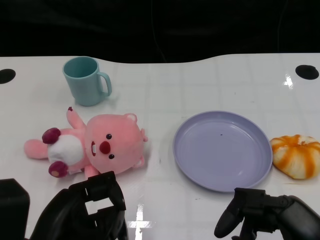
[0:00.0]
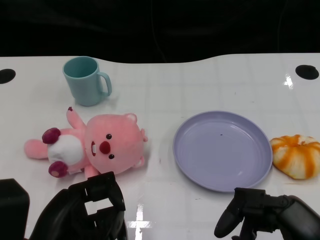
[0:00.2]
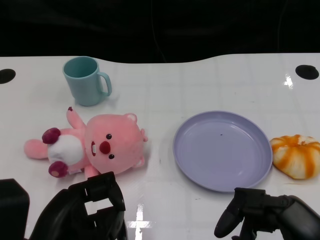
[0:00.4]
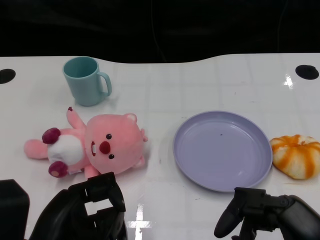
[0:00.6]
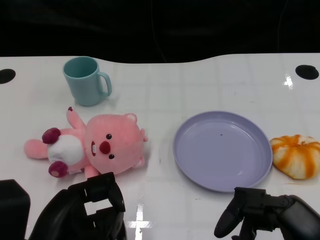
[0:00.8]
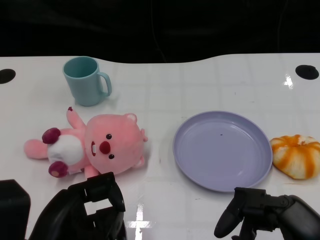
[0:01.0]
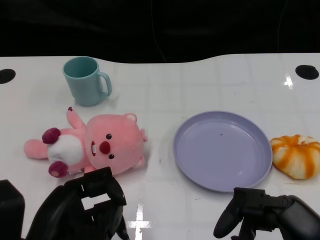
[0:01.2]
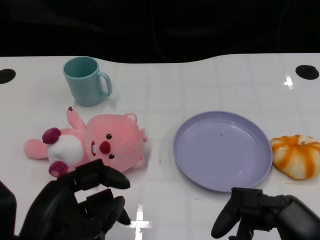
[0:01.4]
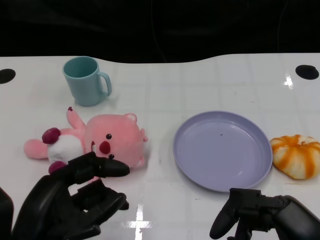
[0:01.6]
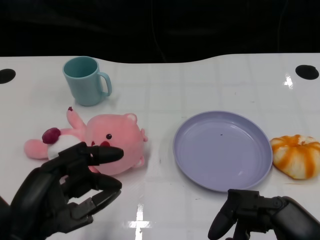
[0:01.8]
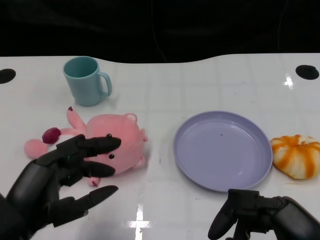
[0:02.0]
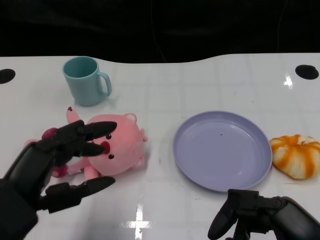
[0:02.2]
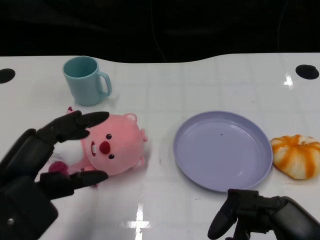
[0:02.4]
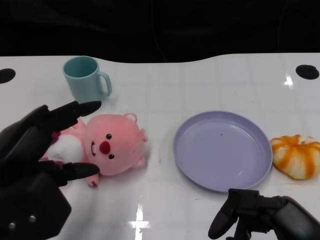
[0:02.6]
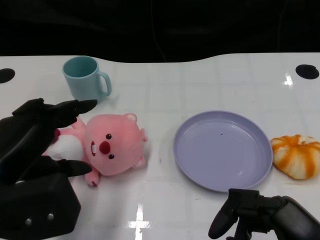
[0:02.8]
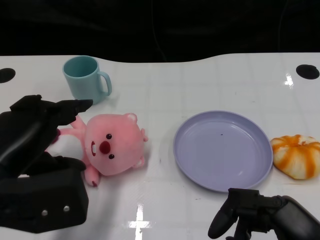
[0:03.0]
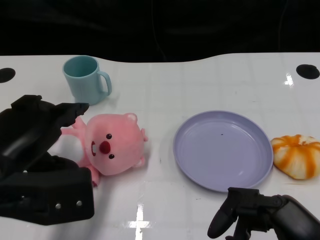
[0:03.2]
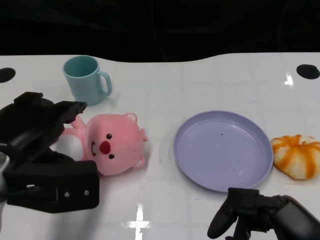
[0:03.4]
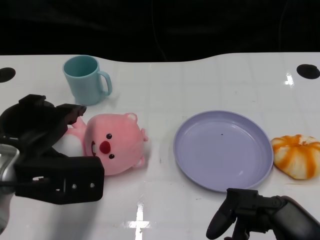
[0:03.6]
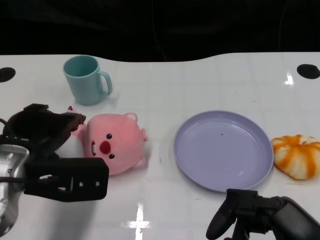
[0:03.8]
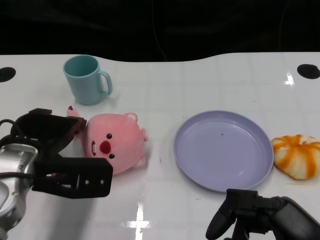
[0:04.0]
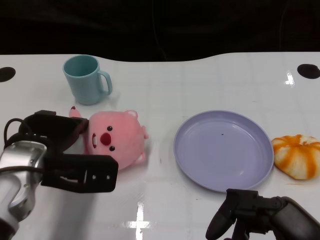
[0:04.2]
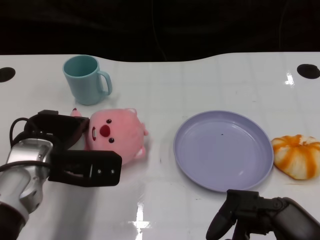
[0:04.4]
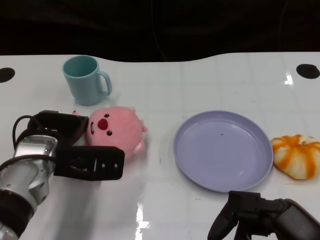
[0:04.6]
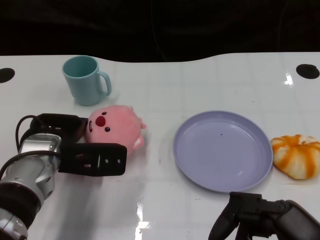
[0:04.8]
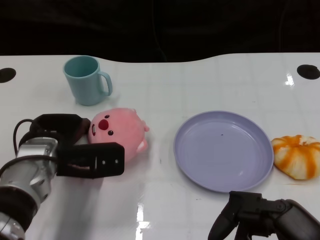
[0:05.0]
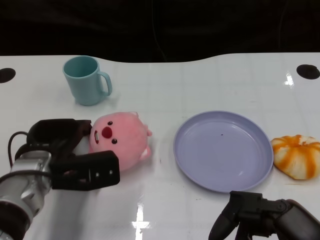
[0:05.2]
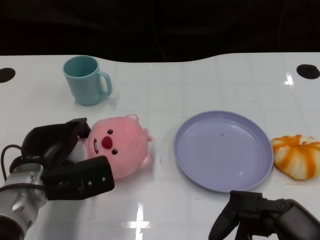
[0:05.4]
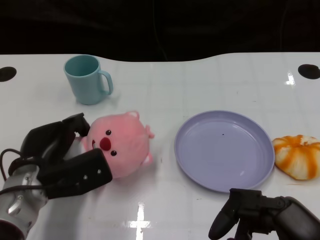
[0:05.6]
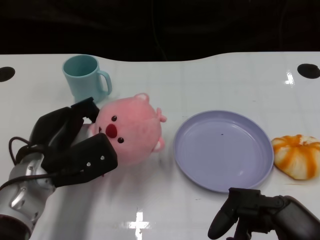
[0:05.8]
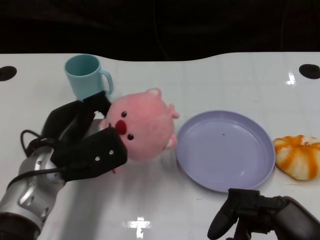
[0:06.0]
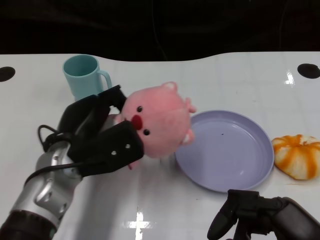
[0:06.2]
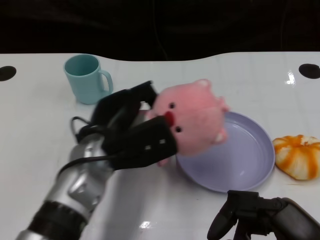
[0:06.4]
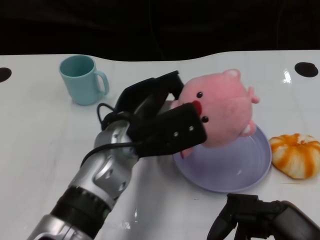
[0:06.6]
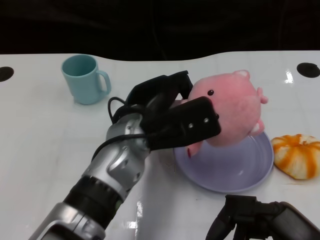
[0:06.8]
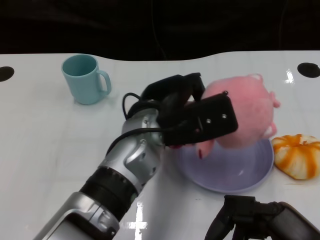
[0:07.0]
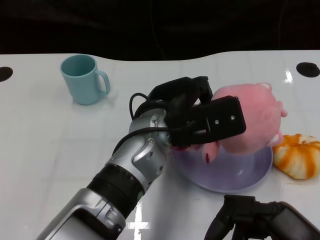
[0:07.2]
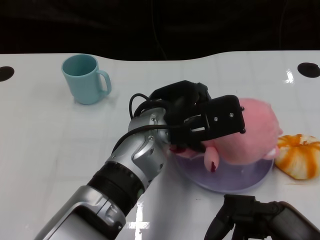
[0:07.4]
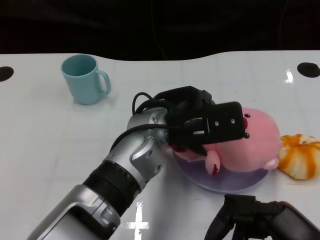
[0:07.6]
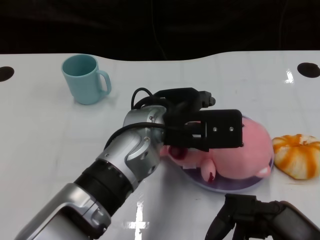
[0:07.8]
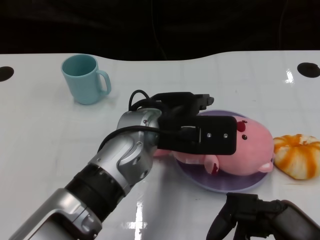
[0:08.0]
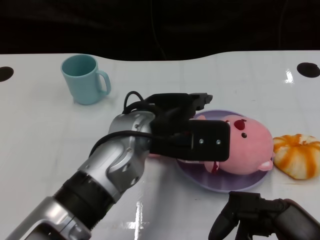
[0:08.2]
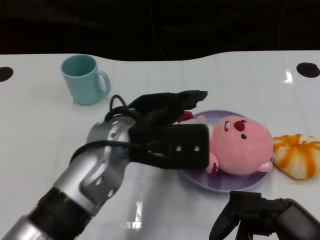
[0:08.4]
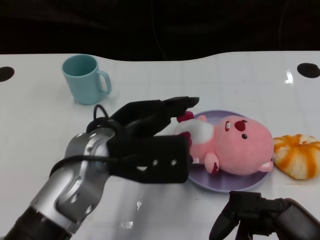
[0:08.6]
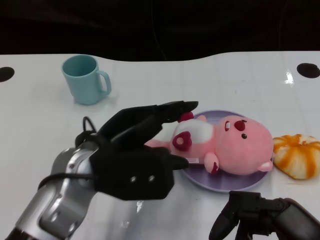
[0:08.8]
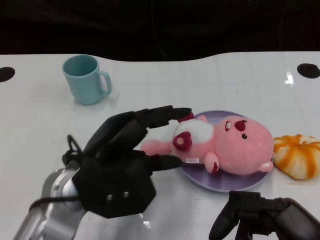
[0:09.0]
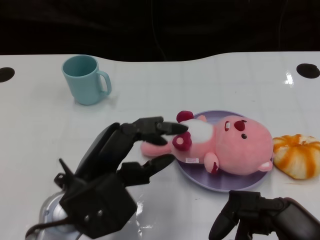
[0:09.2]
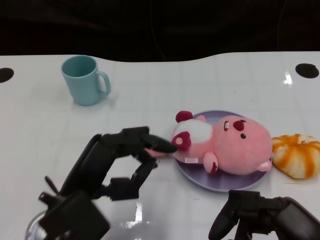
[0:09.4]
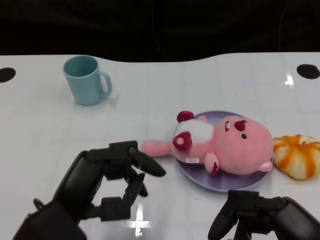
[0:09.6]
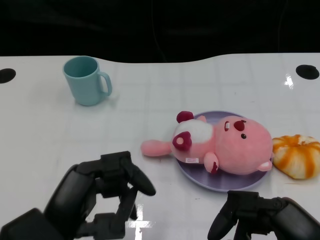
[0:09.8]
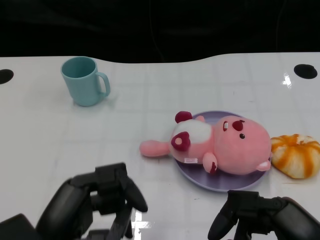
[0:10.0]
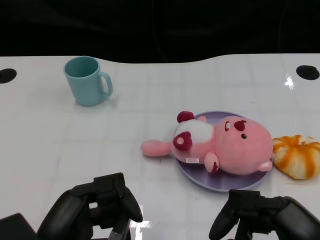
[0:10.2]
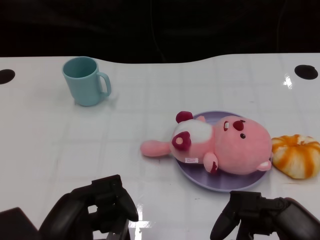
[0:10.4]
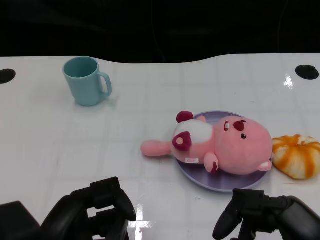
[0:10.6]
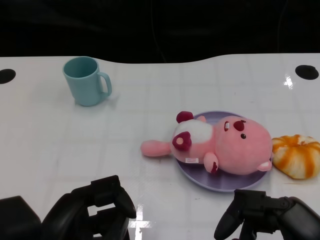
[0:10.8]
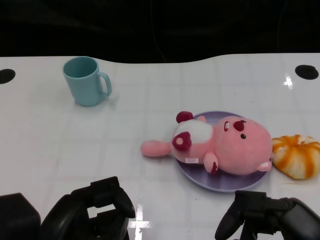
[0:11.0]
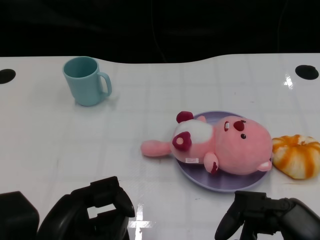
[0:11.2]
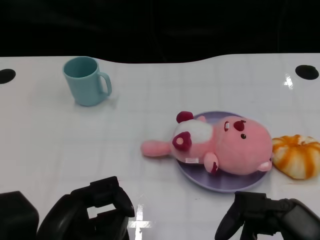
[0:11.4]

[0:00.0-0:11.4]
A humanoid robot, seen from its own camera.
Task of the whole recording: Pick up the doll on one side of the plate and place it into the plate.
Step, 0:01.2 to 0:05.6: Grasp the pink doll with the left gripper.
Step, 0:05.8 to 0:07.8: Place the pink doll into the plate with the left gripper.
0:01.4 to 0:02.8: The left hand moves upward, about 5 cm.
0:02.8 to 0:04.2: The left hand travels forward and downward by roughly 10 cm.
0:04.2 to 0:05.6: The left hand shifts approximately 5 cm downward.
0:05.6 to 0:07.2: The left hand travels to the right and upward by roughly 20 cm.
0:07.2 to 0:08.6: The left hand is displaced to the left by some 10 cm.
0:08.6 to 0:10.0: The left hand is displaced backward and to the left by some 15 cm.

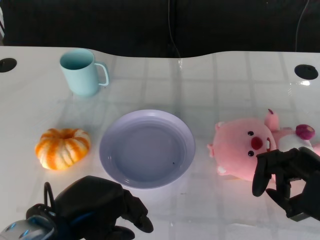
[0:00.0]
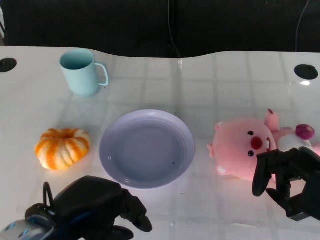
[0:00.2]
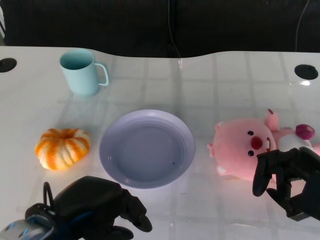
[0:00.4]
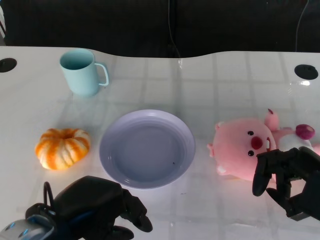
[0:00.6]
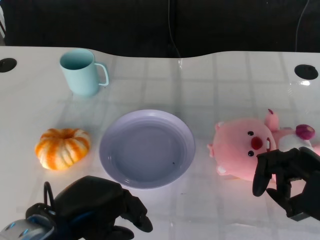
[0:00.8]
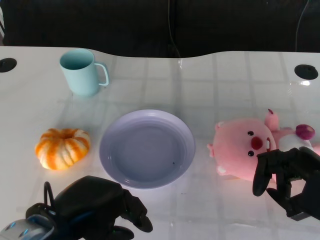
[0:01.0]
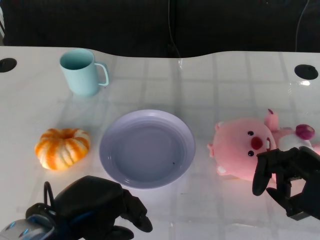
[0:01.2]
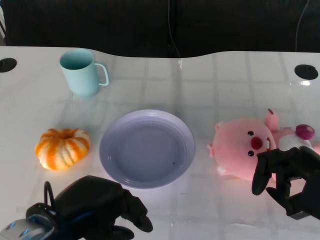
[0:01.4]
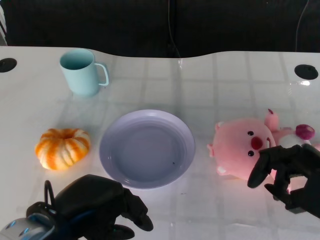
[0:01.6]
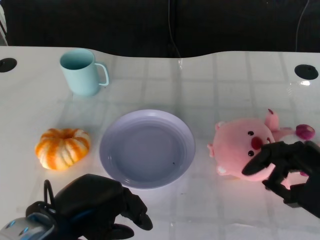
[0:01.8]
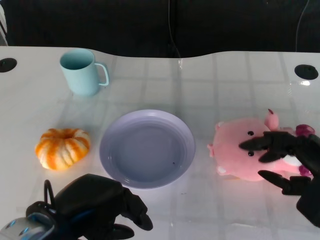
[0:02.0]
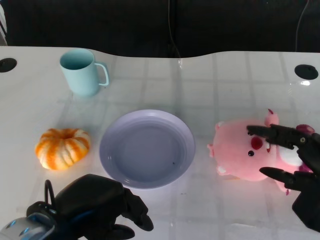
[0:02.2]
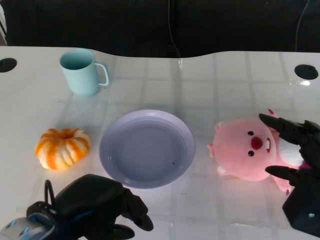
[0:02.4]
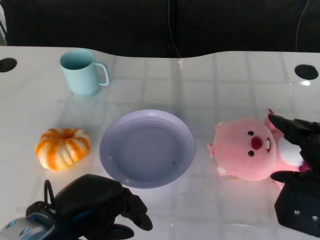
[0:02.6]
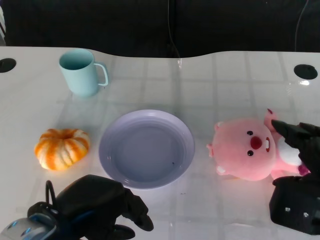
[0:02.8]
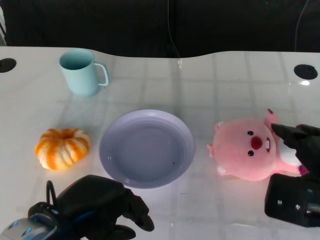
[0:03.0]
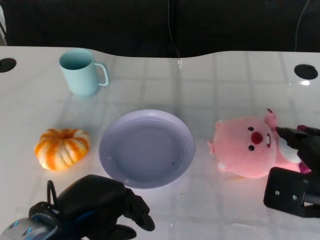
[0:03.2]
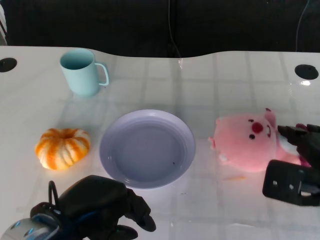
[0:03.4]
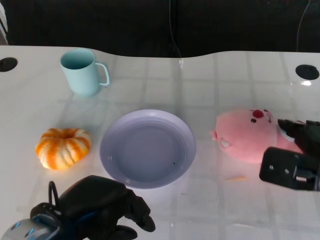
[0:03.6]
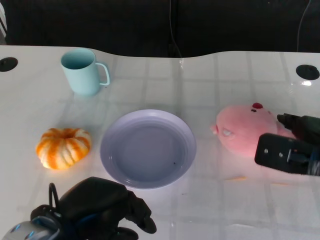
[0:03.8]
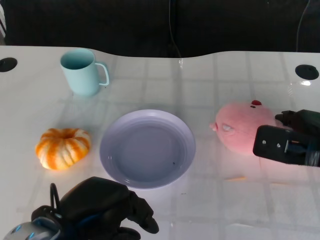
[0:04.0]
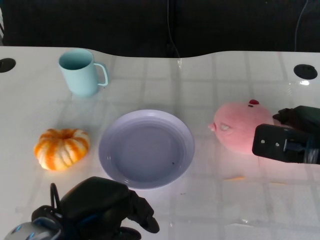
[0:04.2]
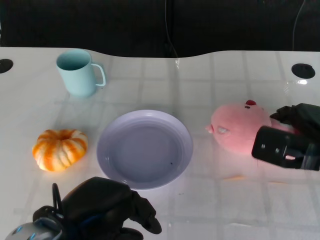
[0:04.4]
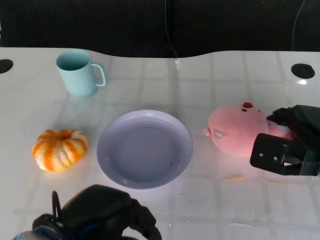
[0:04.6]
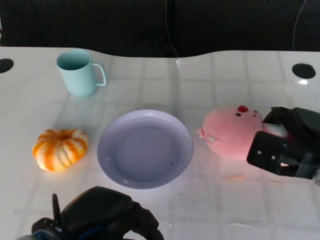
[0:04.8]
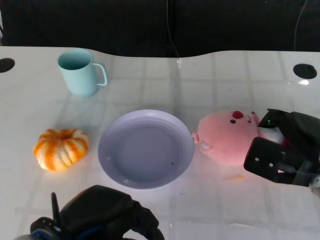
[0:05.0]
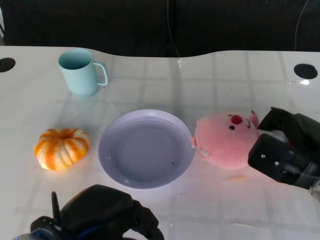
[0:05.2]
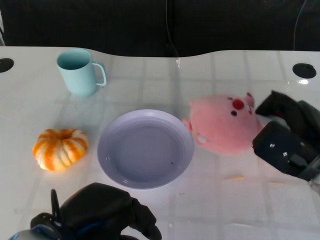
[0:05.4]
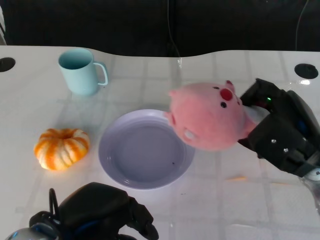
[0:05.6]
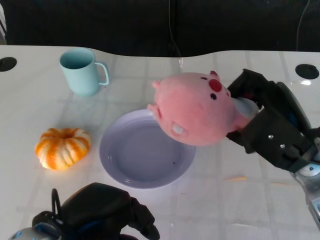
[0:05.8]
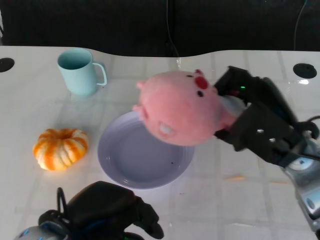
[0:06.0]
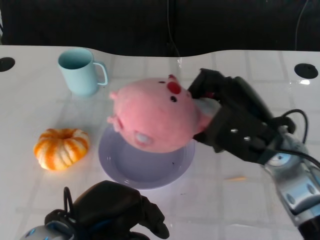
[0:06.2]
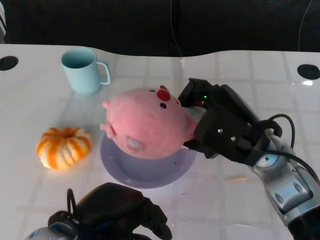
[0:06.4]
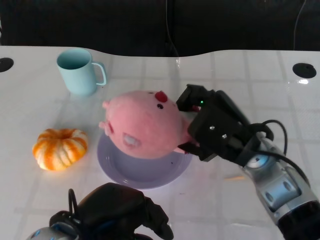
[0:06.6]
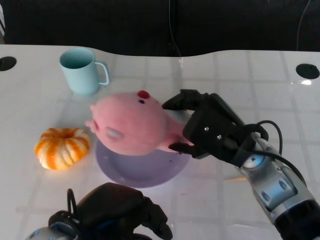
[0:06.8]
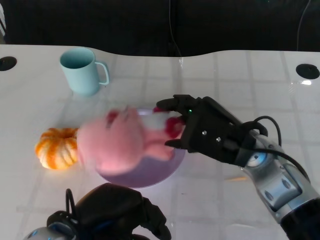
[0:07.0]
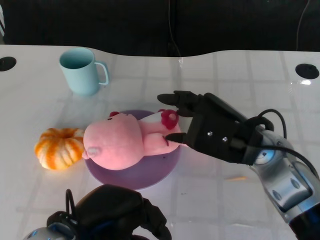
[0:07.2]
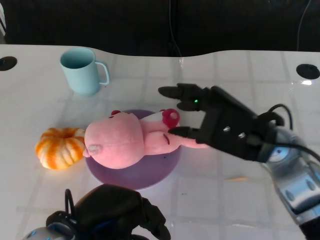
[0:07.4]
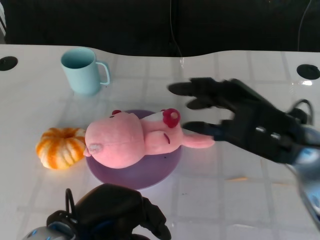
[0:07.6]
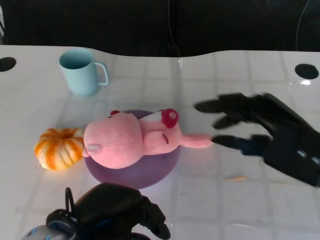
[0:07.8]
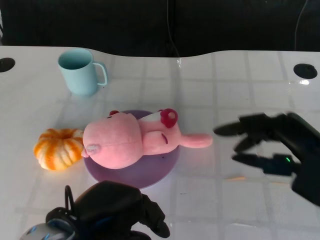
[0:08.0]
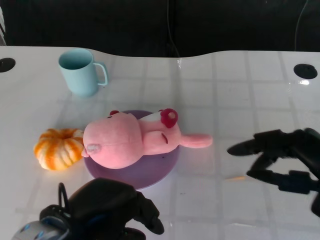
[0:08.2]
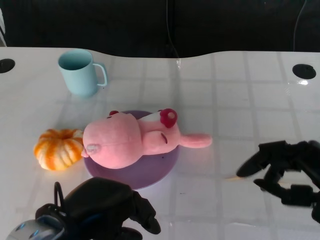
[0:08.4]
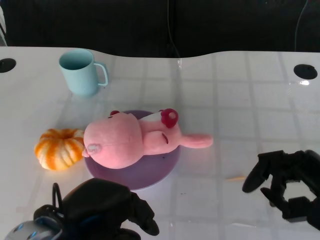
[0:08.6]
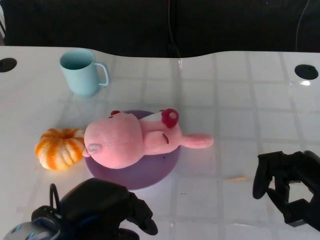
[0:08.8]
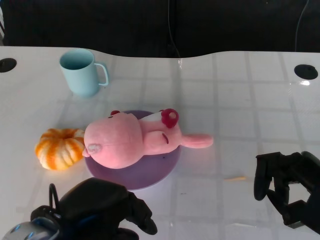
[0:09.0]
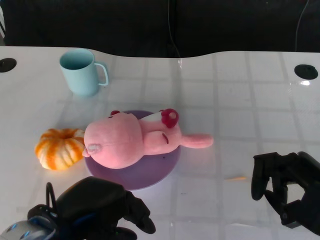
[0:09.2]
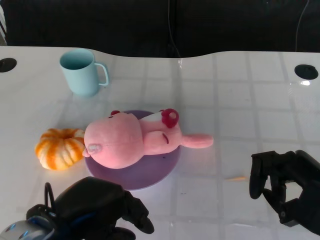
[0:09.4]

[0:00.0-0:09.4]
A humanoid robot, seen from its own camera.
Task of the whole recording: Pick up the doll on the other side of the plate and place it into the plate.
Step, 0:01.4 to 0:05.8: Grasp the pink doll with the right gripper.
Step, 0:06.2 to 0:07.6: Place the pink doll into the plate with the right gripper.
0:03.2 to 0:04.8: The right hand goes approximately 5 cm forward.
0:04.8 to 0:06.2: The right hand heads to the left and upward, covering some 10 cm.
0:06.2 to 0:07.8: The right hand goes roughly 5 cm to the right.
0:07.8 to 0:09.4: The right hand is displaced downward and backward by roughly 5 cm.

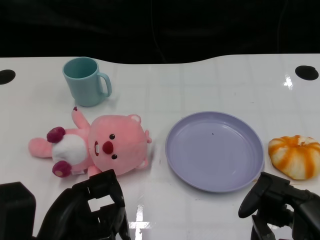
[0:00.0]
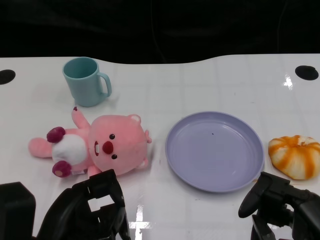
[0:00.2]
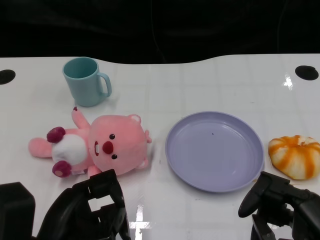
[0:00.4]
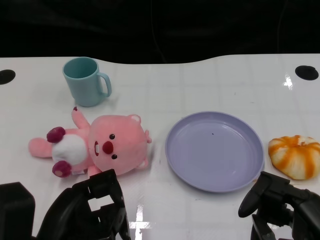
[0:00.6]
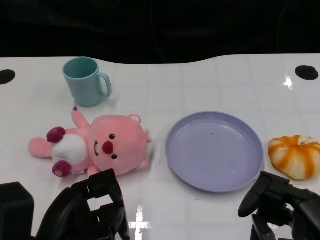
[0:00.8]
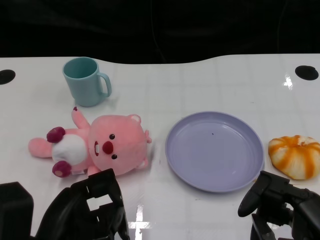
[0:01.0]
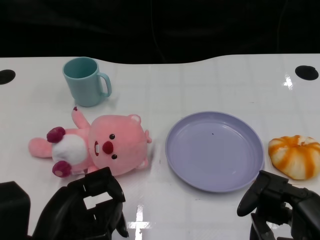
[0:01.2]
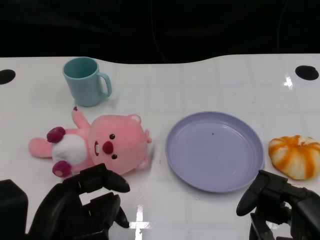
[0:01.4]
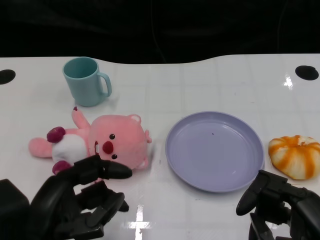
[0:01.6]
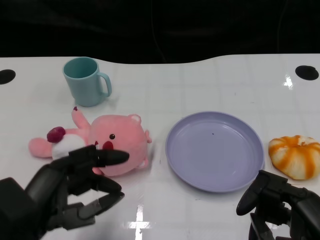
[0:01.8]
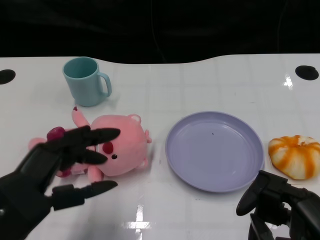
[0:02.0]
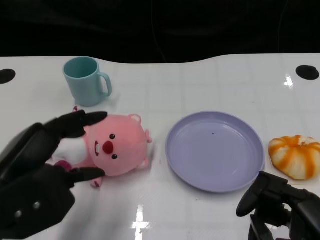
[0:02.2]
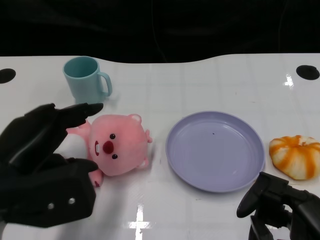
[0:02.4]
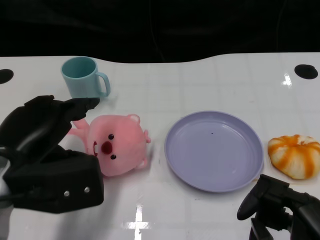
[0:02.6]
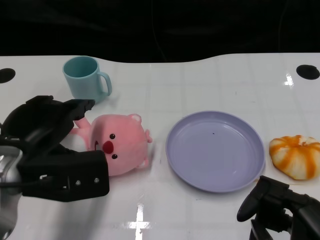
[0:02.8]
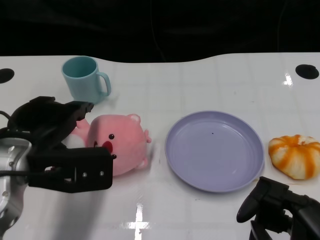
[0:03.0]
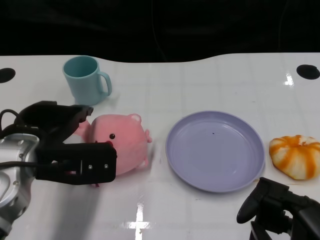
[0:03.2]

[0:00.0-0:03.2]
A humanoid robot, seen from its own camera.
Task of the whole recording: Pick up the doll on one side of the plate and place it into the plate.
0:01.6 to 0:03.2: The left hand goes some 10 cm forward.
